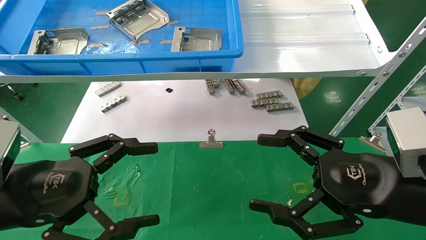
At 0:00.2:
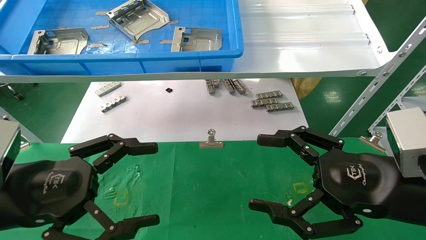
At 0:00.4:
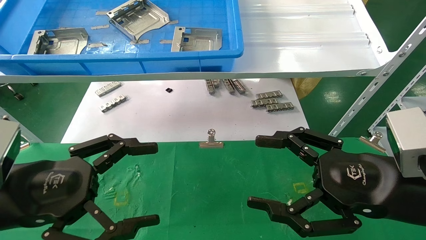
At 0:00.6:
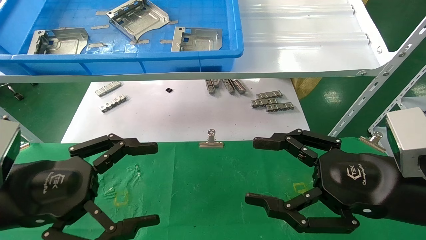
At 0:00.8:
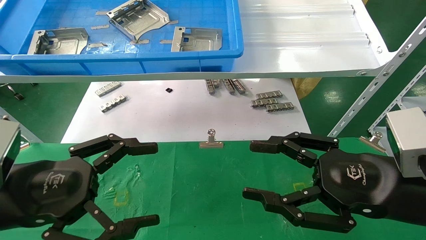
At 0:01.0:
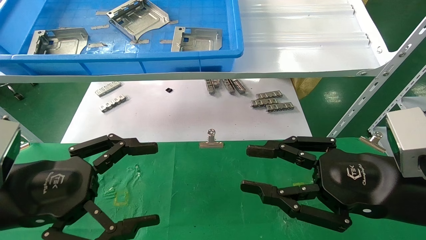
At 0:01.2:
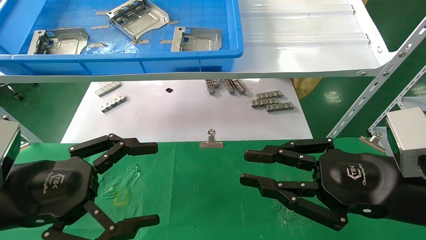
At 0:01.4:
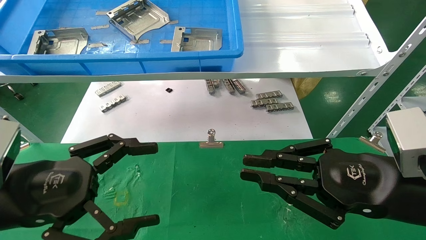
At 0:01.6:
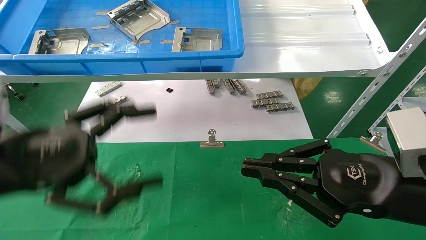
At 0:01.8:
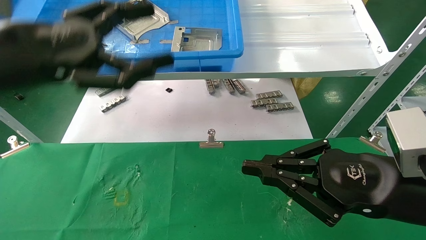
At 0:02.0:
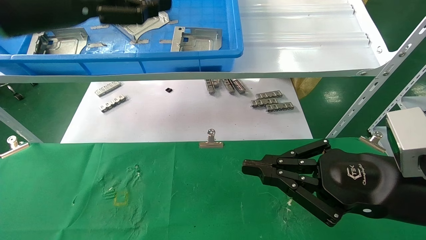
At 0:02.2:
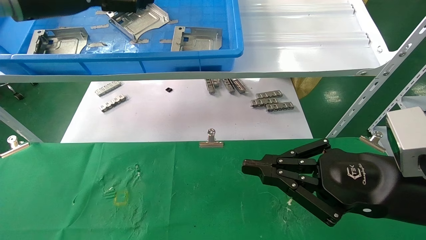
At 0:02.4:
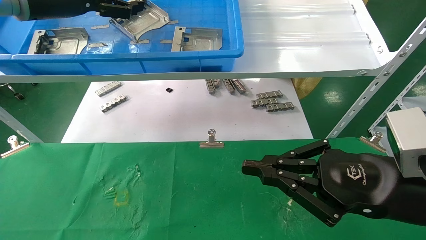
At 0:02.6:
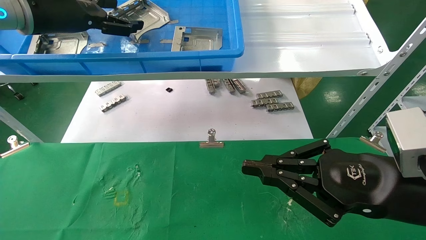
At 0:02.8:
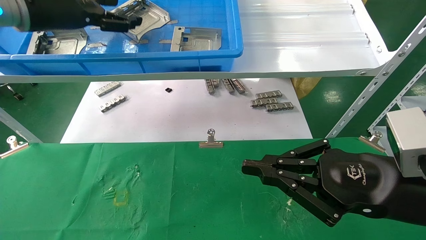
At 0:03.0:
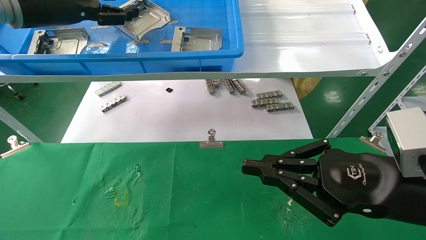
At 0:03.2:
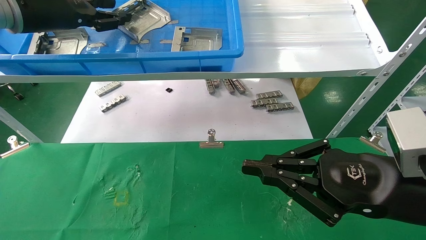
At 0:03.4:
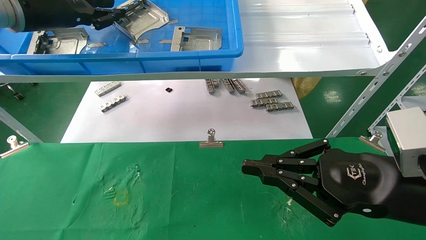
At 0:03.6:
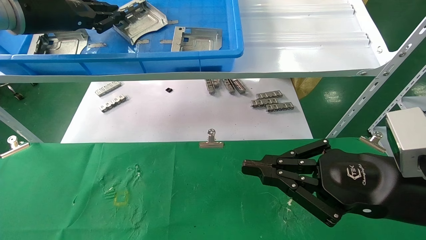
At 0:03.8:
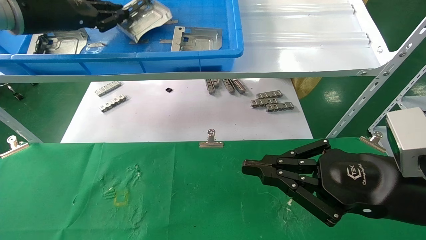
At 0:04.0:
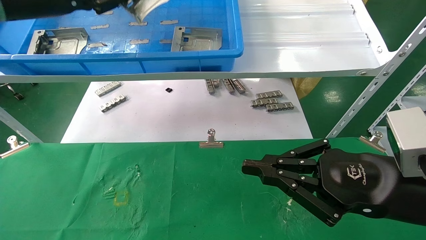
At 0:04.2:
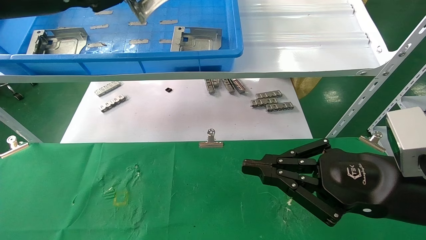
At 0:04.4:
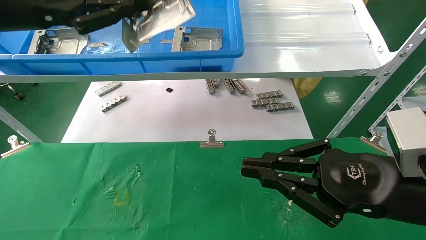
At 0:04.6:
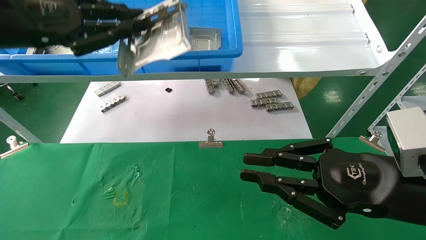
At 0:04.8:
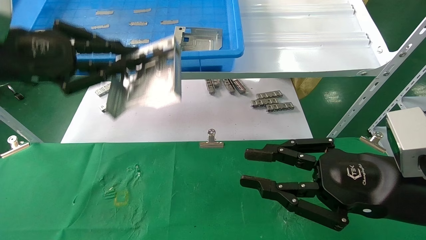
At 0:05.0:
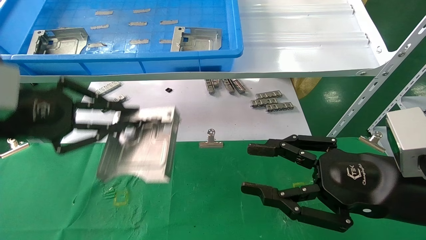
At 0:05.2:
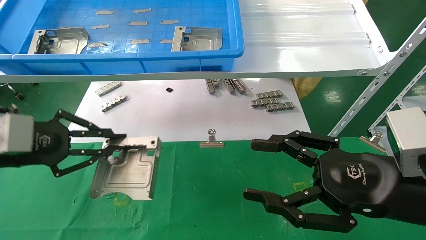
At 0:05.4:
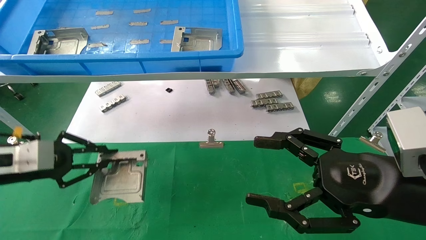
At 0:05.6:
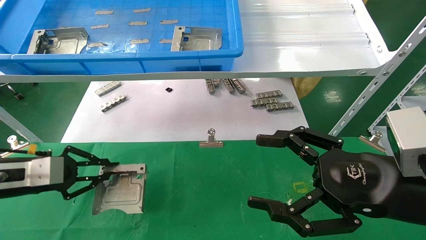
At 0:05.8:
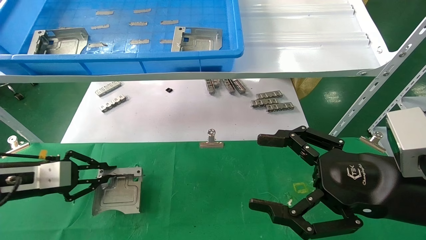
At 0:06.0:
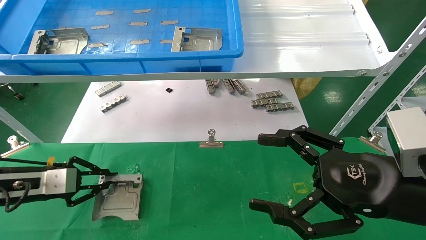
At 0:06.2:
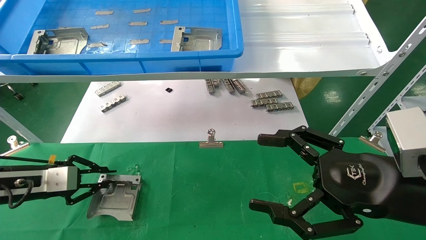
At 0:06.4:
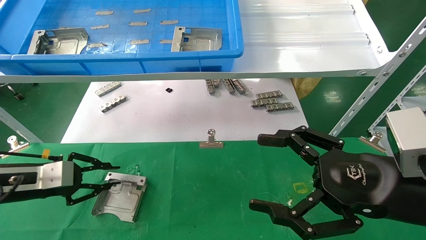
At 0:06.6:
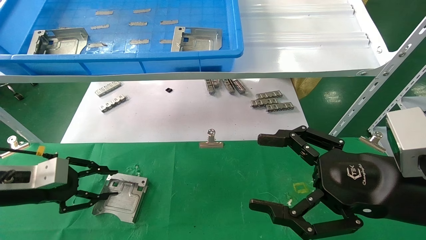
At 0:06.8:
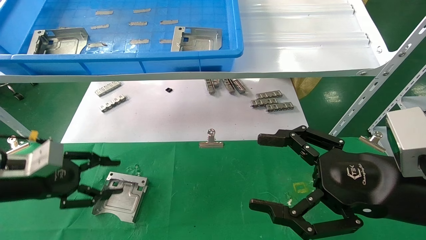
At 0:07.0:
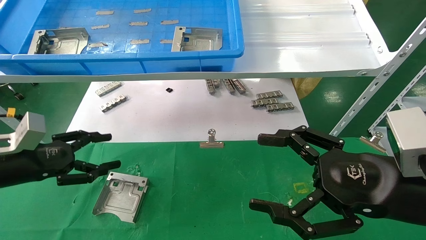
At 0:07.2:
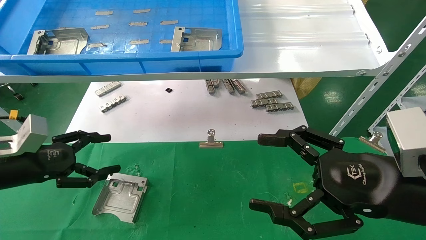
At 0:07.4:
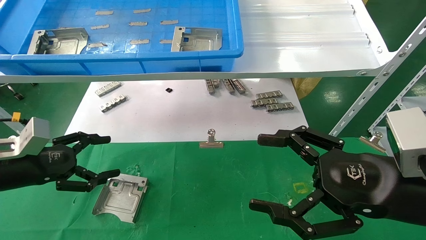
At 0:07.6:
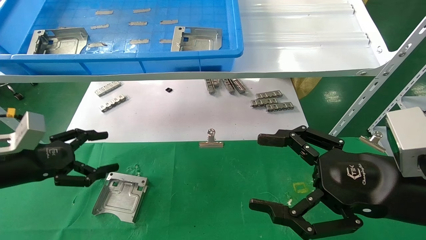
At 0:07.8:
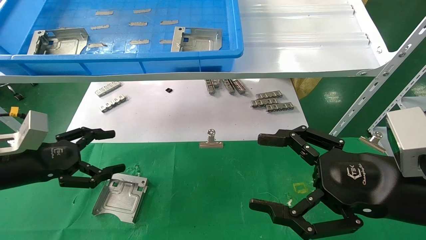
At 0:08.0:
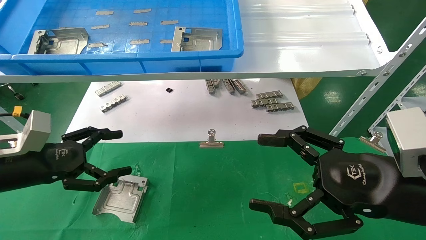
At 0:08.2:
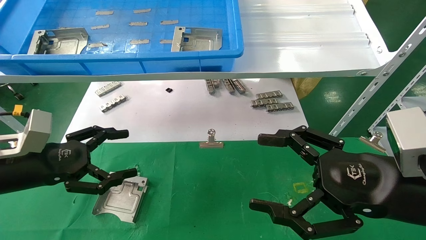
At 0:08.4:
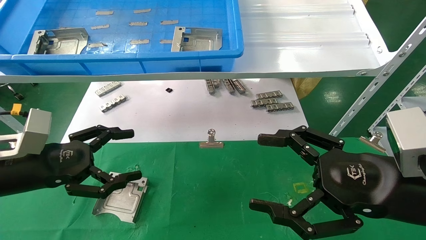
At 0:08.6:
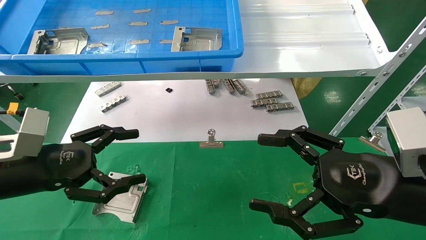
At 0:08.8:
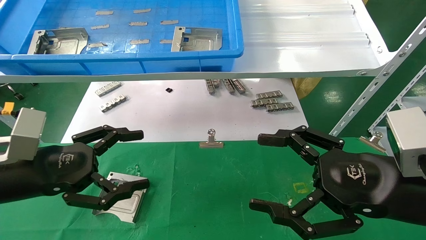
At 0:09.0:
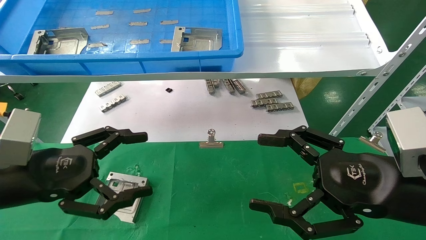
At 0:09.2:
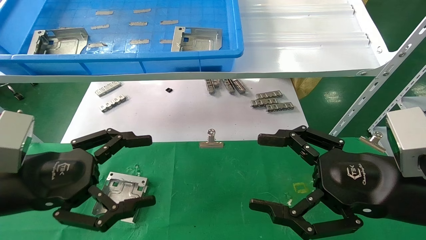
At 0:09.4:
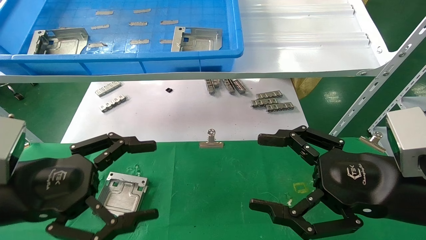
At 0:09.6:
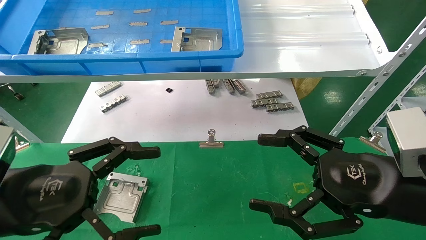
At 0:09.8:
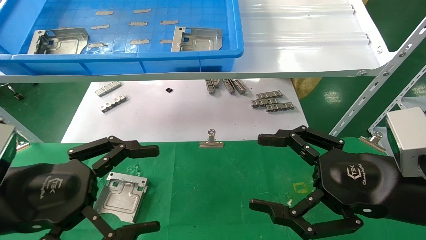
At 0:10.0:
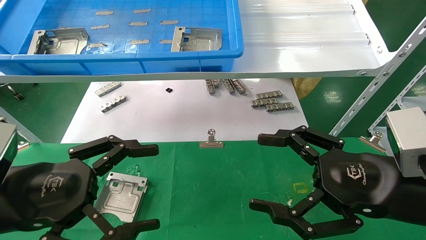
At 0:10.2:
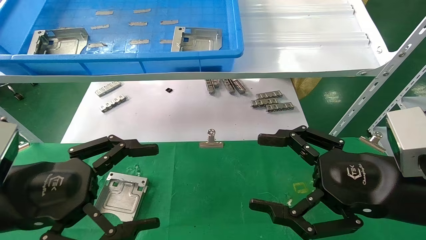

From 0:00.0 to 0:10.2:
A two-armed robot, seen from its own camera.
Task of the whole recording: use the mechanical arm to pick up the parts and place them on the table.
Step, from 0:01.8 to 0:03.8: Pick up the hard drive bracket from the feeding area.
Step, from 0:04.0 to 0:06.2: Place the hard drive bracket into the box.
From 0:00.0 to 0:01.4: The right gripper closes its fingers.
From 0:01.4 to 0:03.0: The left gripper is displaced upward and forward by some 30 cm.
From 0:03.0 to 0:04.4: The left gripper goes some 10 cm backward, and closes.
From 0:04.4 to 0:05.8: The right gripper opens up; the left gripper is displaced downward by about 30 cm.
From 0:05.8 to 0:07.2: The left gripper opens.
From 0:07.2 to 0:08.8: The left gripper moves to the right and backward, some 10 cm.
From 0:08.8 to 0:10.2: The left gripper shifts some 5 cm backward.

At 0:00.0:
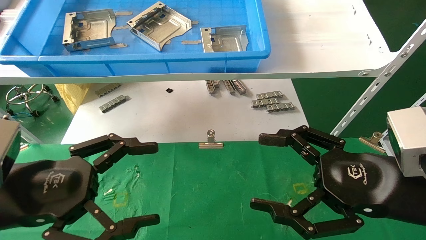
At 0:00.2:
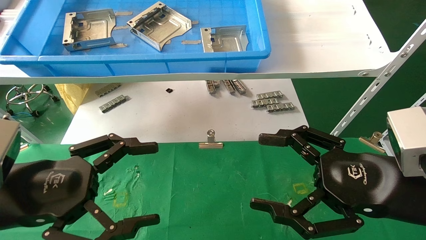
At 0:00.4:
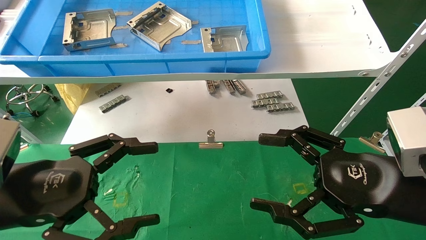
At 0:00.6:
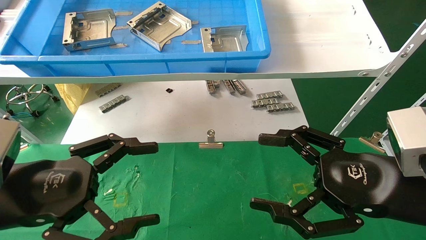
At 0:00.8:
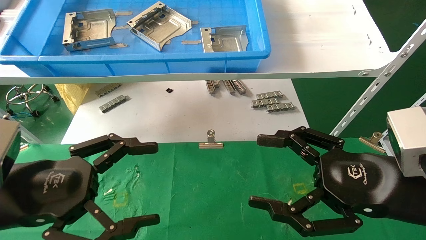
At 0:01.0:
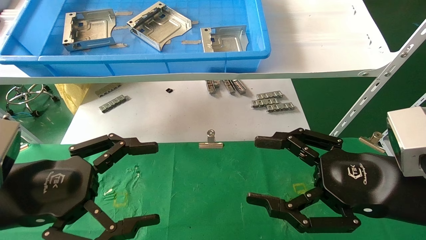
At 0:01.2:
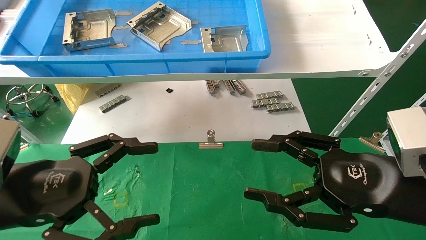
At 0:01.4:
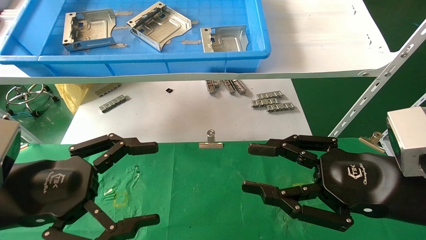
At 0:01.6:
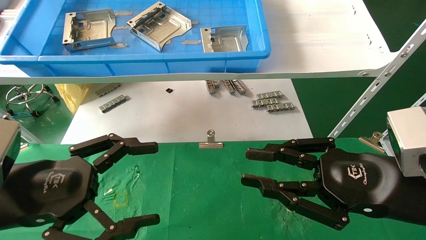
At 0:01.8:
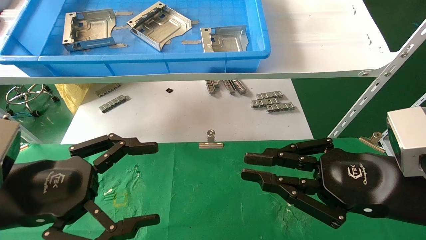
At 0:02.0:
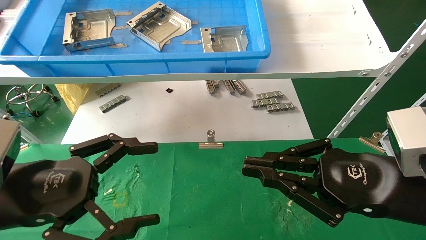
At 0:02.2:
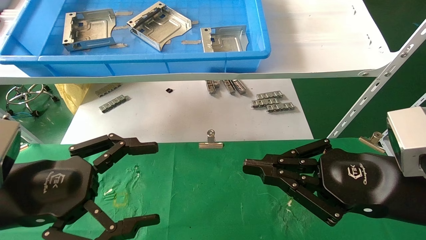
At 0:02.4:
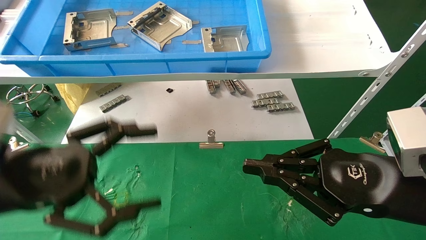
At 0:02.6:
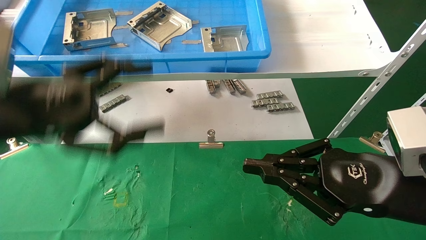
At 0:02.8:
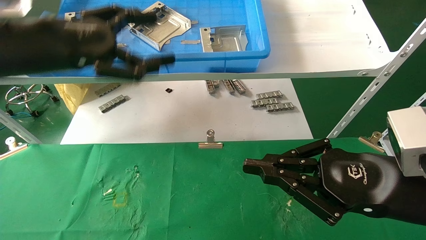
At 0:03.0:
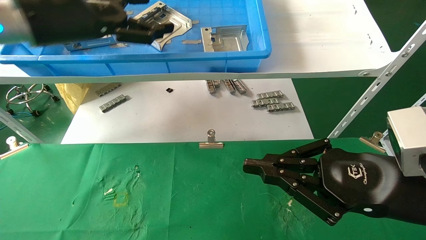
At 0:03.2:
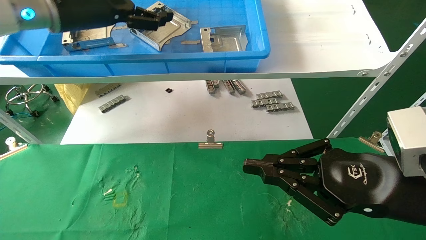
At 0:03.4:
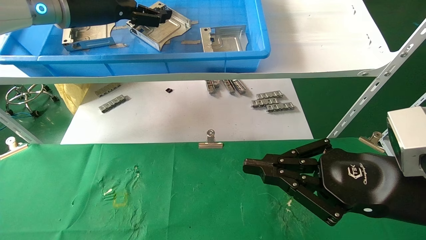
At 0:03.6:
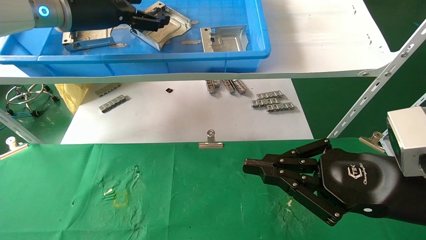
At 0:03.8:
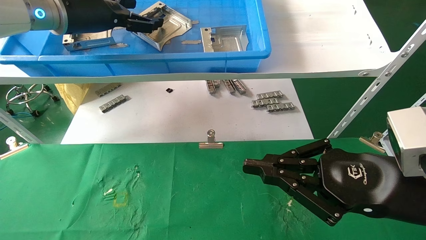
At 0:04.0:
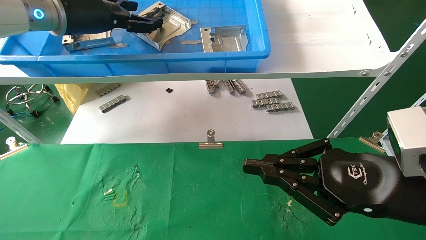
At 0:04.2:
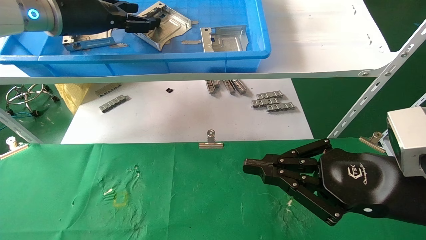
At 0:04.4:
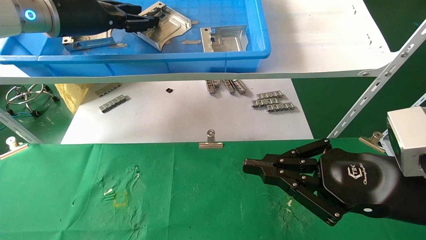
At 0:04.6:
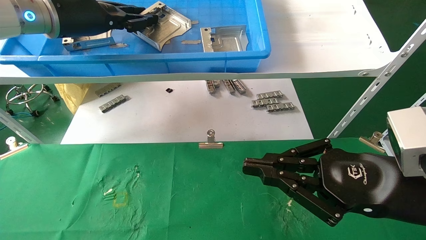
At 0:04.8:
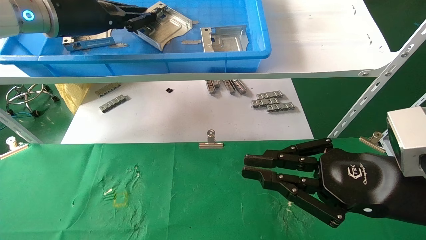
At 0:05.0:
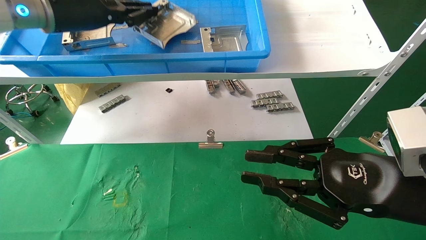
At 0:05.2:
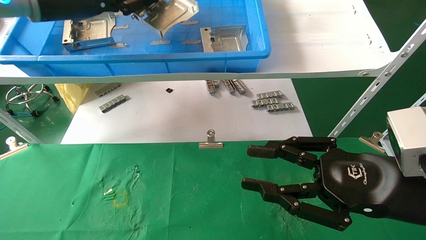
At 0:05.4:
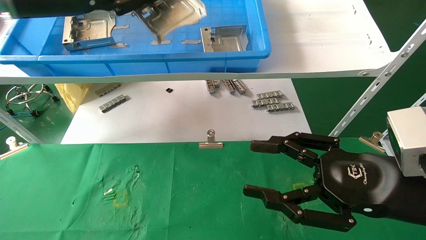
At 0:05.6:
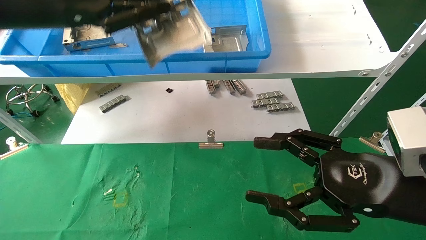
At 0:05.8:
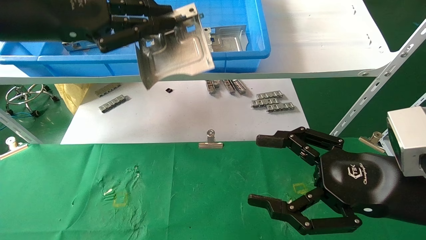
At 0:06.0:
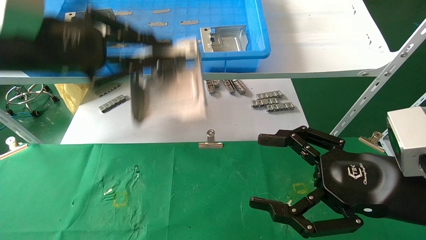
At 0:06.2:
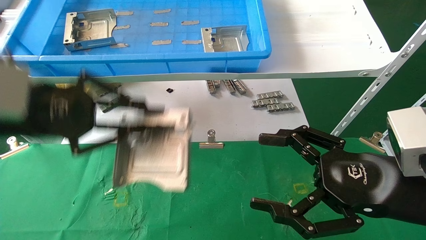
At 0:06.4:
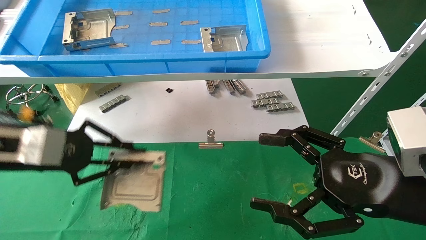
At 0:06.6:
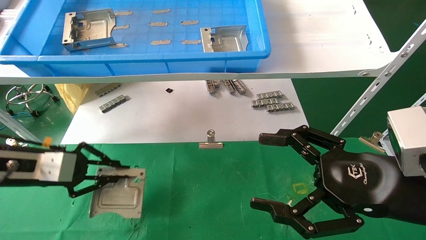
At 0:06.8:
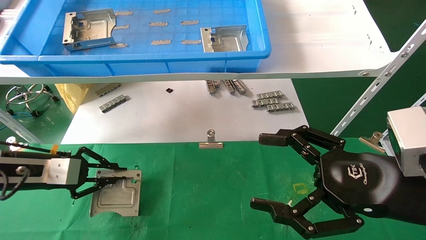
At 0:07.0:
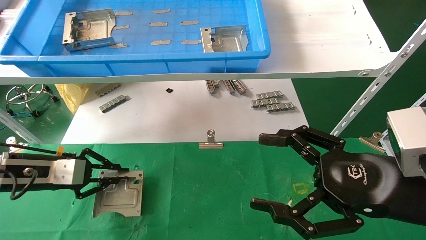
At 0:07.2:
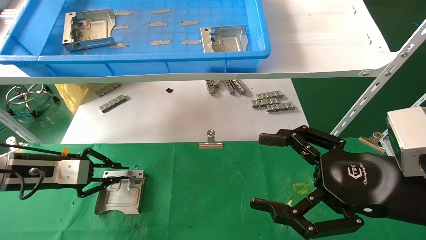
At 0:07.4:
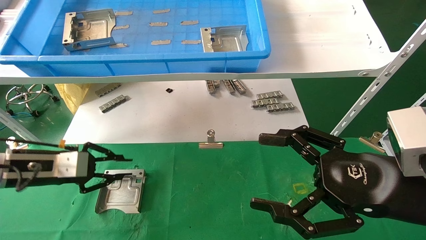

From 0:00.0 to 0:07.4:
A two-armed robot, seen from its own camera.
Task of the whole recording: use the mechanical arm to pick up the parts and place them on the table.
Step, from 0:02.6 to 0:05.0: Pick up the hard drive bracket from the feeding area.
Step, from 0:05.2 to 0:07.2: Place the hard drive bracket into the box.
From 0:00.0 to 0:01.4: The right gripper closes.
From 0:01.4 to 0:03.0: The right gripper closes, while the left gripper shifts roughly 25 cm upward and forward.
From 0:03.0 to 0:04.4: The left gripper moves forward, some 5 cm, and closes.
From 0:04.4 to 0:06.0: The right gripper opens its fingers. Meanwhile the left gripper travels backward by roughly 15 cm, and closes.
From 0:06.0 to 0:07.4: The left gripper is displaced downward and to the left by about 20 cm.
